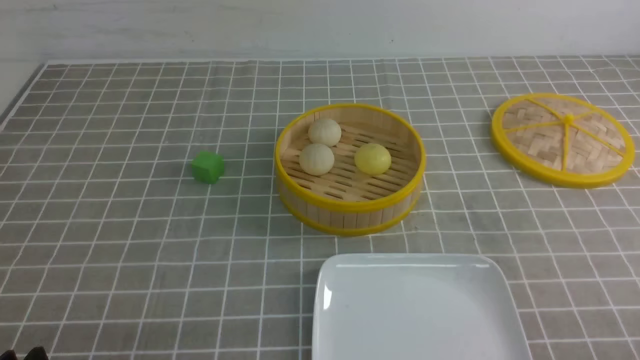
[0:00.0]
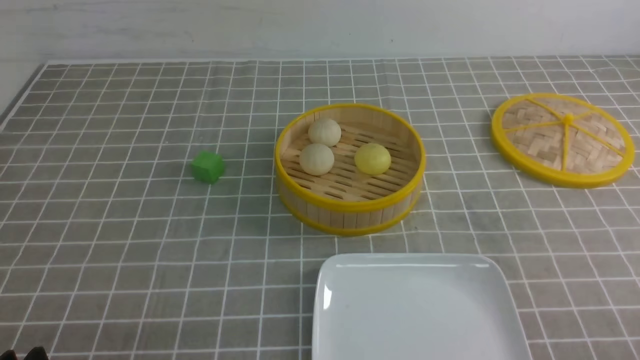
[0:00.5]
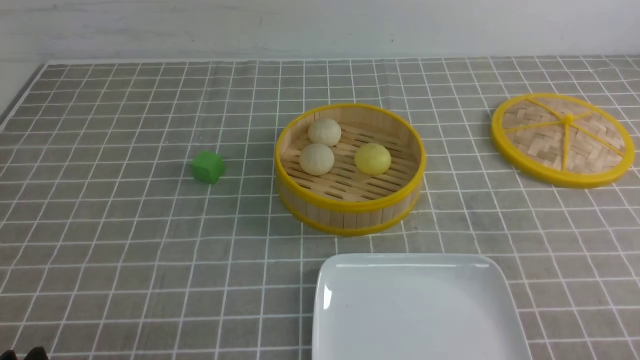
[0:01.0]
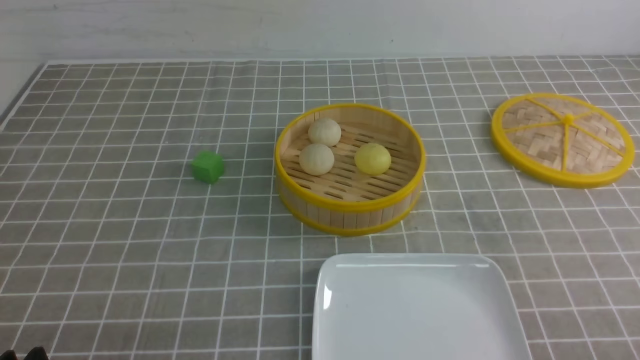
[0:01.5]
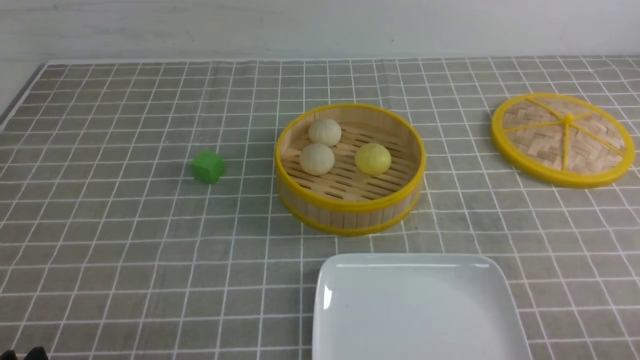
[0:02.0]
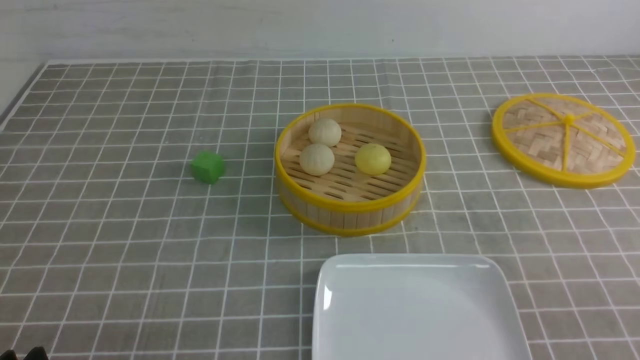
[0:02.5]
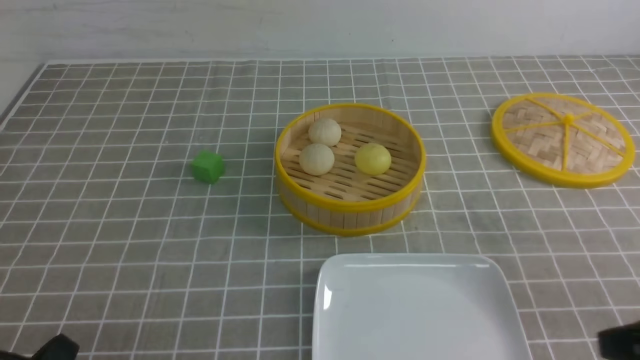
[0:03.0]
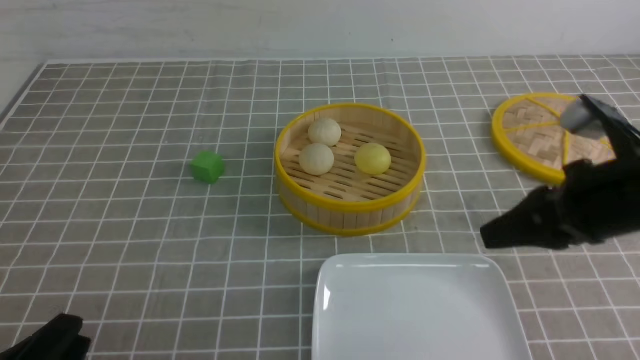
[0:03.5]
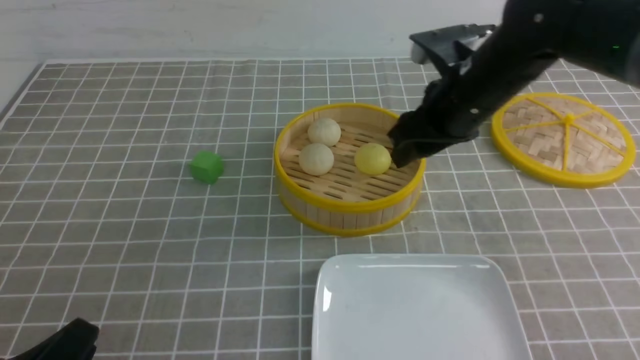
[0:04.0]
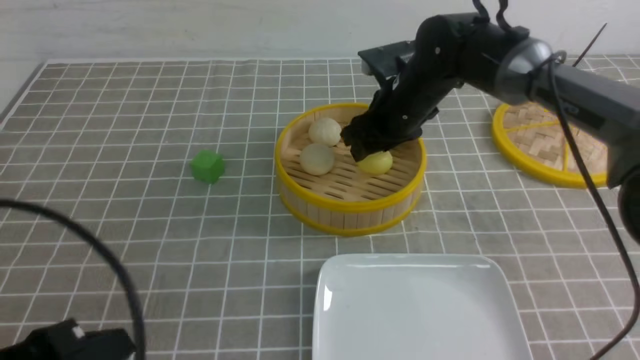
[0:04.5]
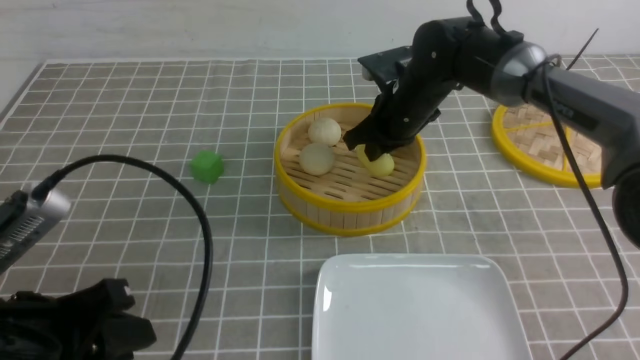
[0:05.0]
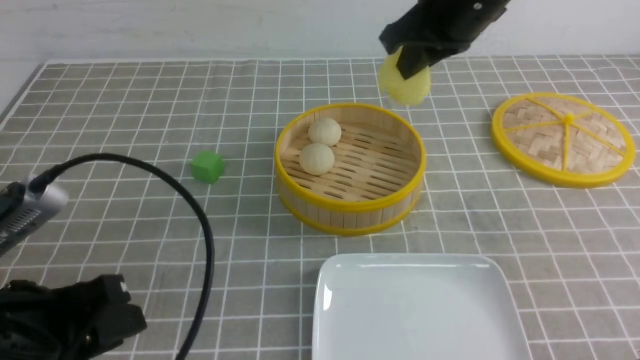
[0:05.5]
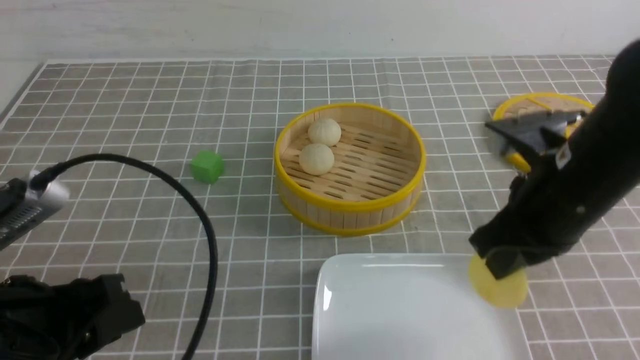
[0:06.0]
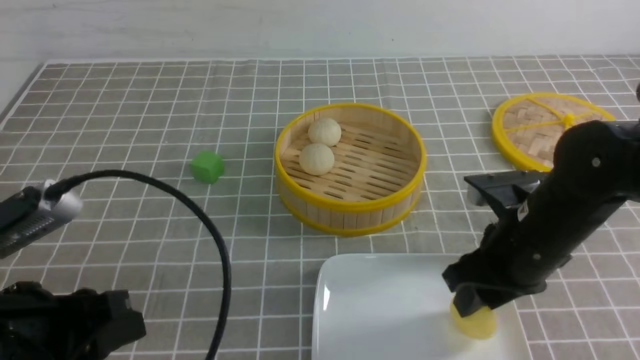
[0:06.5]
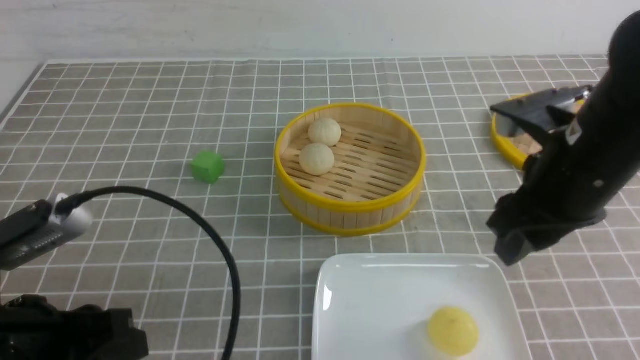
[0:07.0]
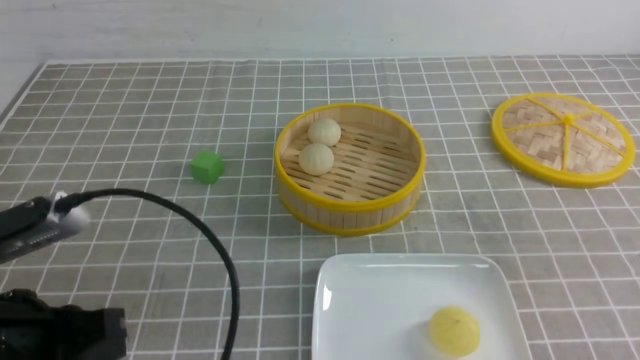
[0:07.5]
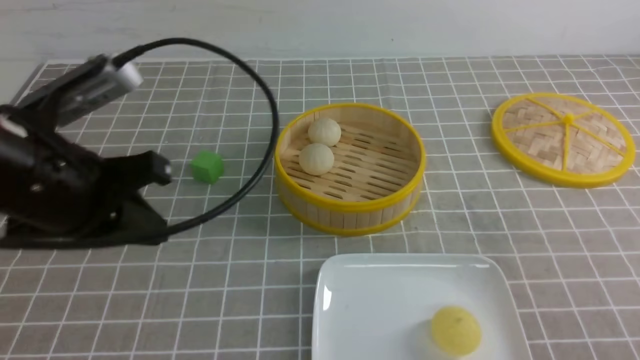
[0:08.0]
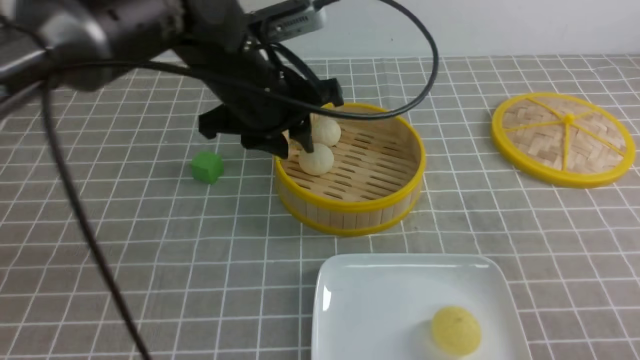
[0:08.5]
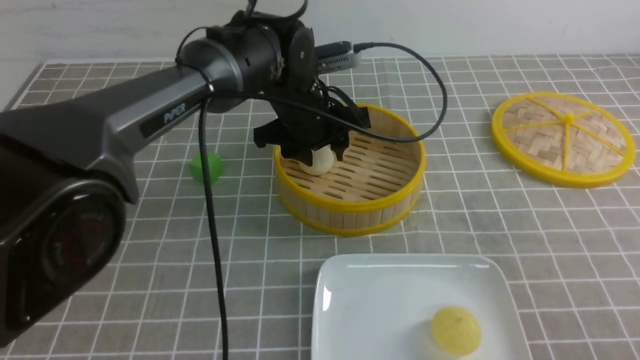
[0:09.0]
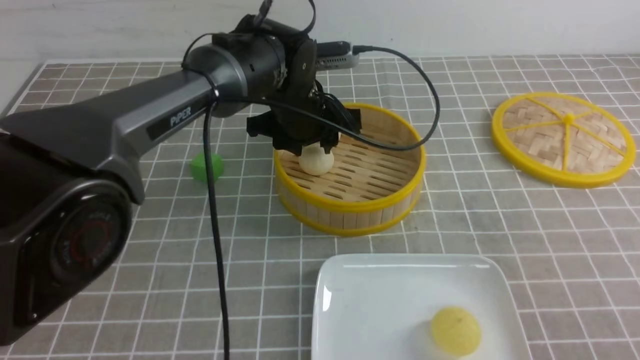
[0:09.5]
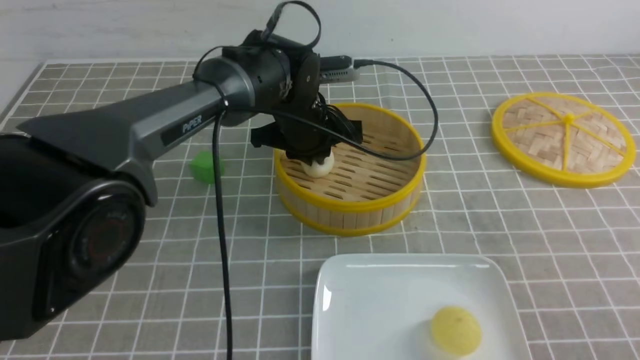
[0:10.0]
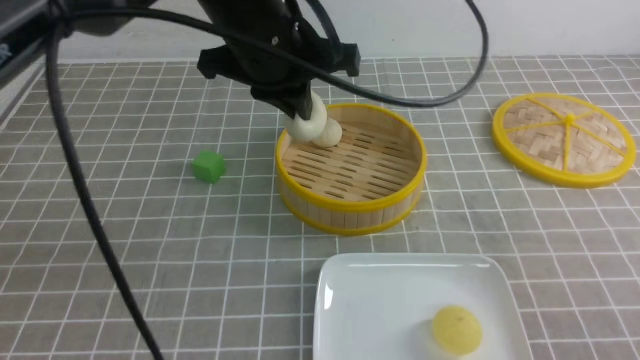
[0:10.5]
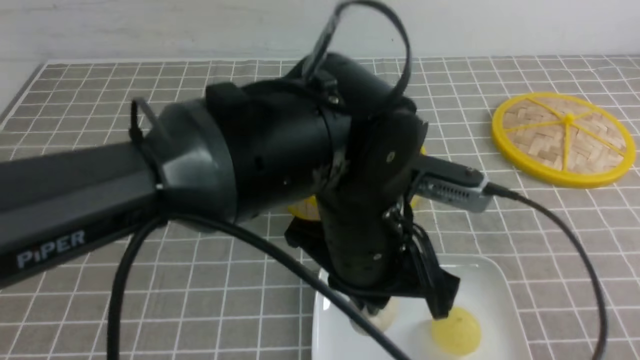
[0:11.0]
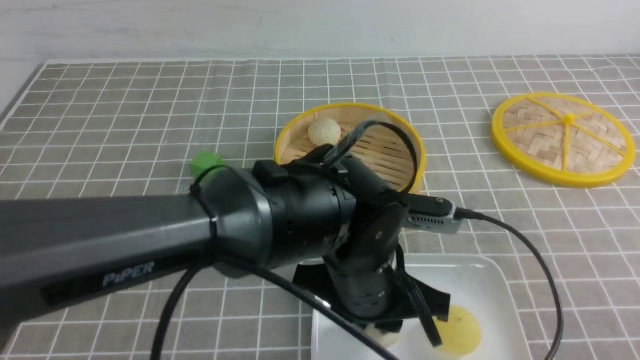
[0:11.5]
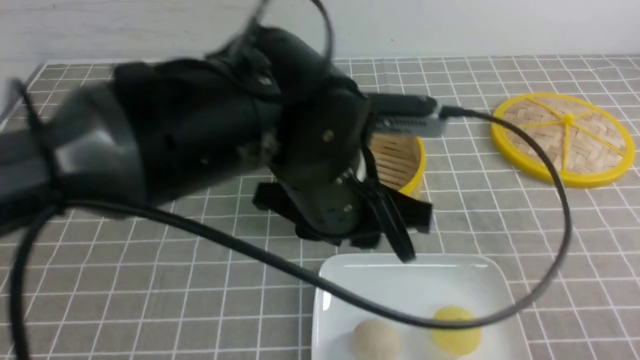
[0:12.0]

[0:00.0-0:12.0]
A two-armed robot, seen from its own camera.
Step, 0.0 to 5.0 s: use the right arm to grab the steamed stuffed bun that is closest to it.
Step, 5.5 to 6.5 s: use the right arm to put the steamed stuffed bun into the plate.
Step, 7.0 to 10.0 s: use the left arm to grab the steamed stuffed bun that is closest to it.
Step, 10.5 to 11.5 s: use the left arm to put the steamed stuffed bun into the plate.
2.0 to 4.0 s: The right gripper moves forward and to the left, roughly 40 cm, and opens up.
4.0 to 6.0 s: The left gripper travels forward and upward by roughly 10 cm, while the right gripper shifts about 10 cm backward, and closes up.
6.0 to 8.0 s: The left gripper heads forward and upward, covering roughly 10 cm, and closes its fingers, while the right gripper moves backward and to the right, some 20 cm, and opens and closes again.
8.0 to 10.0 s: The left gripper is displaced forward, to the right and downward by some 30 cm, and opens, then closes again.
10.0 to 12.0 s: The left gripper travels backward by approximately 20 cm.

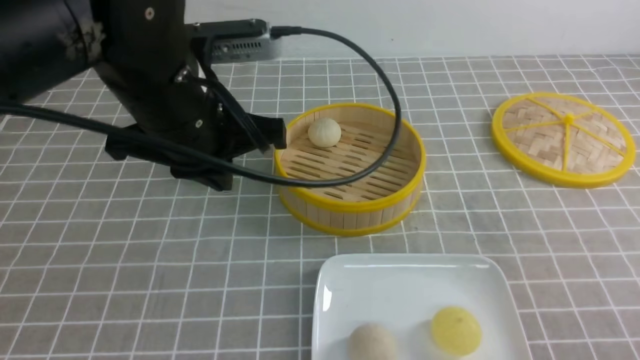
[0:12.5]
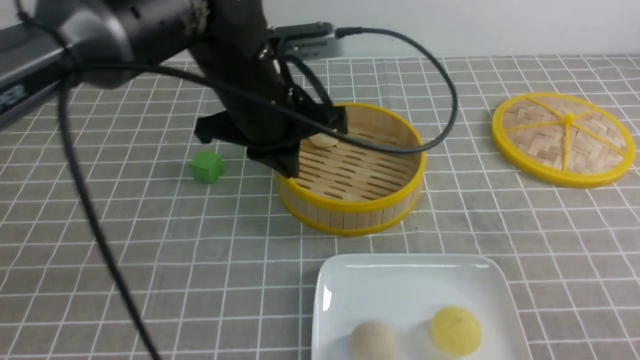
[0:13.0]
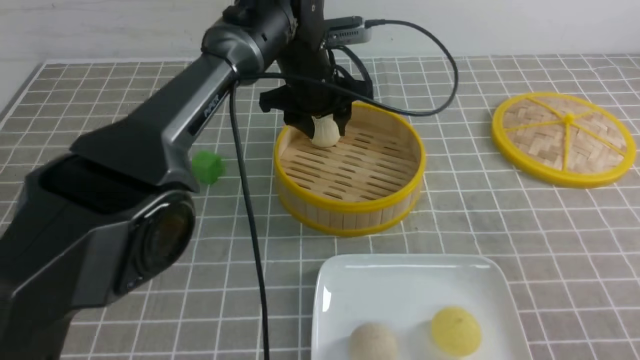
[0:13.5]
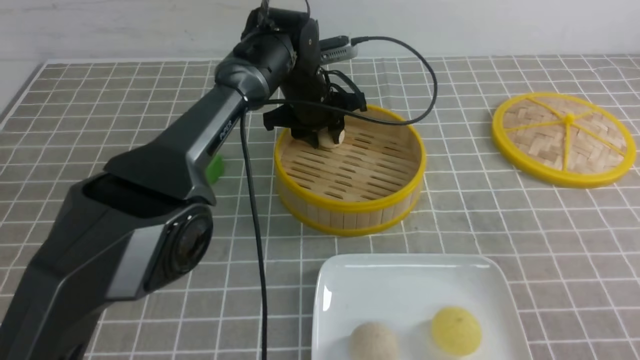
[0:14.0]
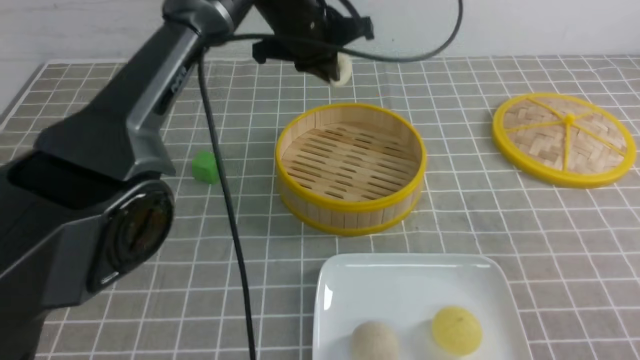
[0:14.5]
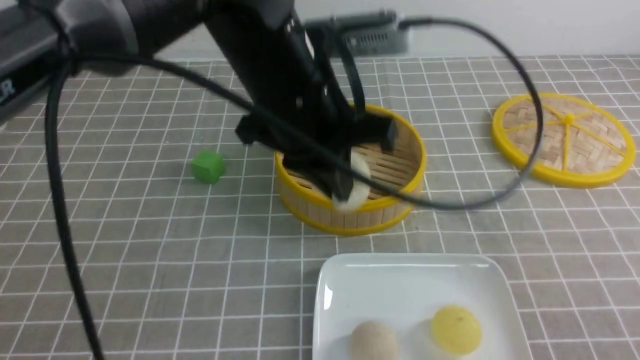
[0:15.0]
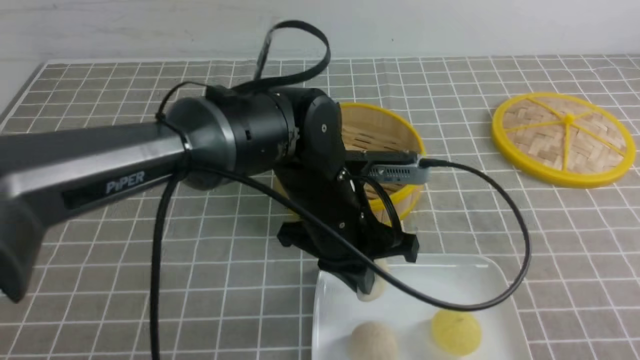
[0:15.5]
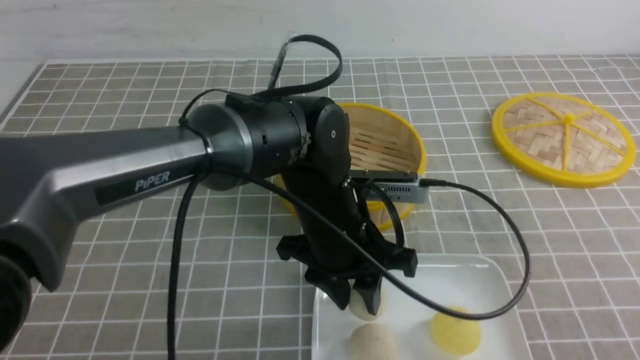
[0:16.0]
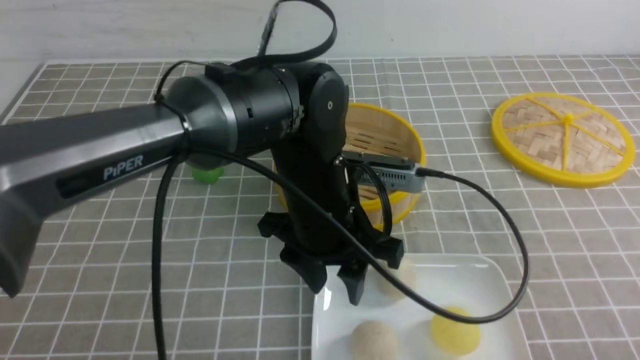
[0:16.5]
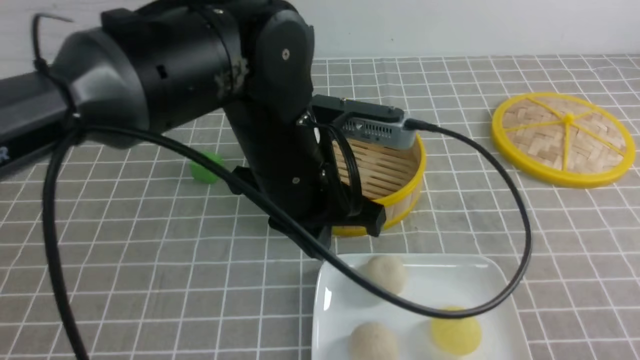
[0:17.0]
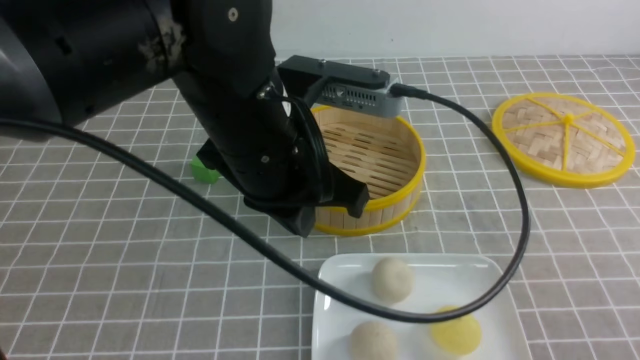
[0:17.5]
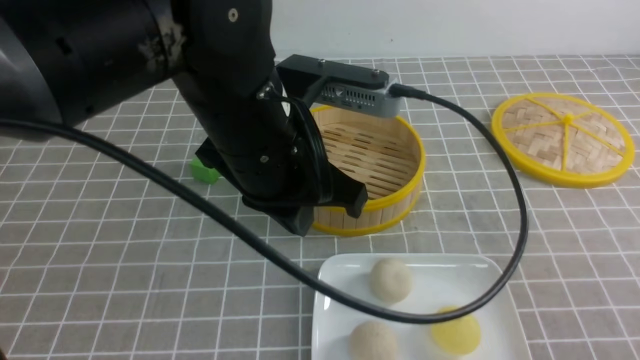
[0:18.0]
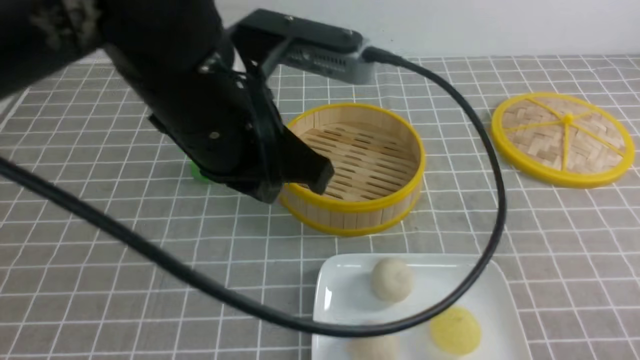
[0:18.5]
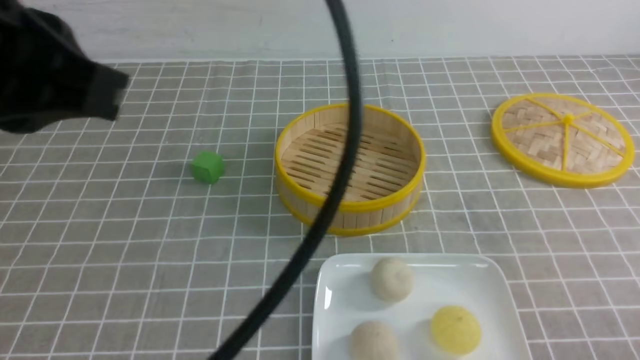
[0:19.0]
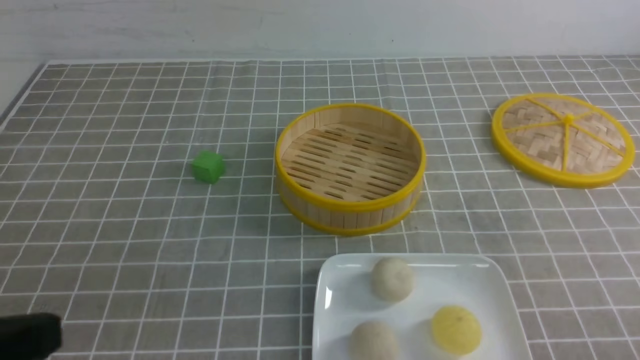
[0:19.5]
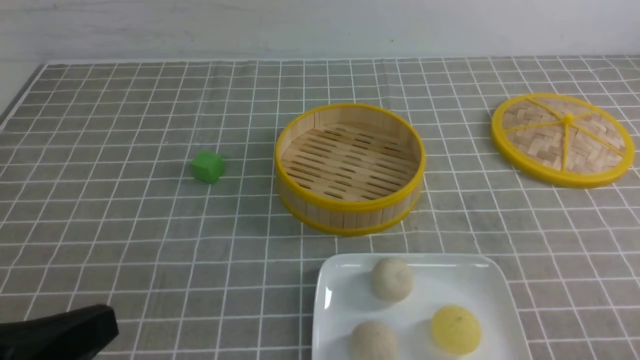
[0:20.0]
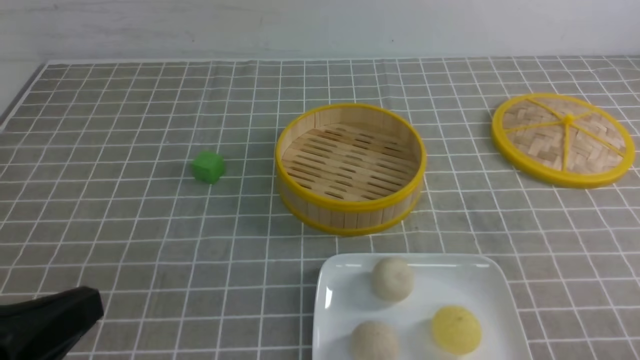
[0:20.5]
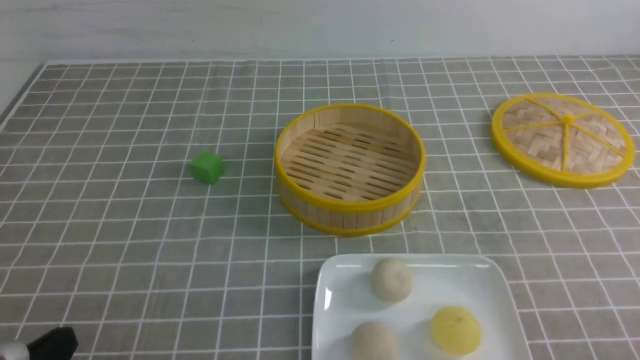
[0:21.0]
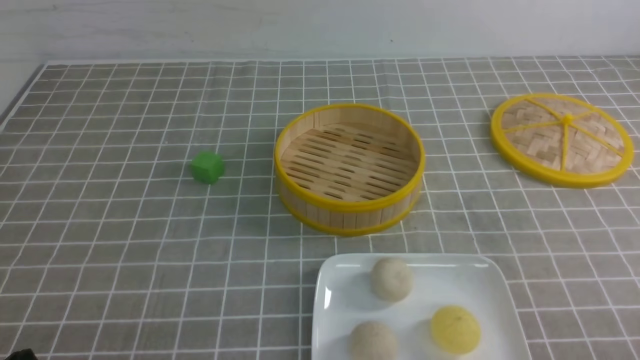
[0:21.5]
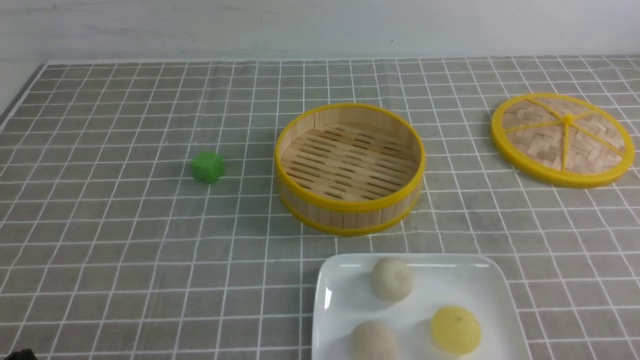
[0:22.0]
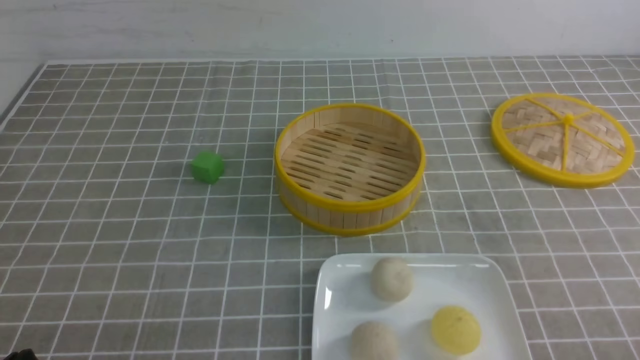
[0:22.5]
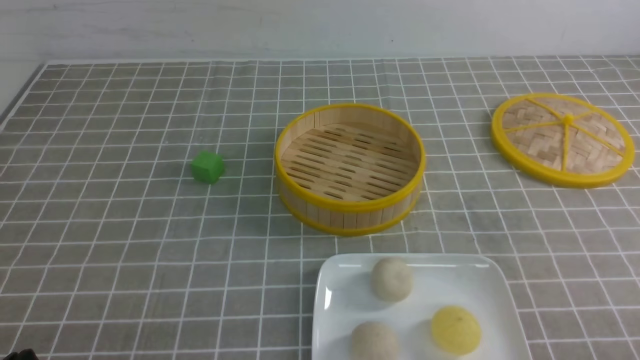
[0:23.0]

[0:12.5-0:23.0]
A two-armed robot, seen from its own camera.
Step, 12.5 to 14.0 s: use the left arm to grab the steamed stuffed bun that is closest to it.
Step, 14.5 to 16.0 s: use the left arm to put the steamed stuffed bun into the plate.
12.5 to 14.5 s: The left gripper shifts about 20 cm forward and to the right, and opens and closes again.
14.5 to 16.5 s: The left gripper moves backward and downward, some 20 cm, and opens its fingers. The right gripper travels backward by roughly 5 cm, and closes its fingers.
16.5 to 19.0 s: The left gripper is displaced upward, to the left and backward by approximately 30 cm, and closes up; the right gripper shifts approximately 15 cm downward.
19.0 to 21.0 s: The left gripper travels downward by about 25 cm.
